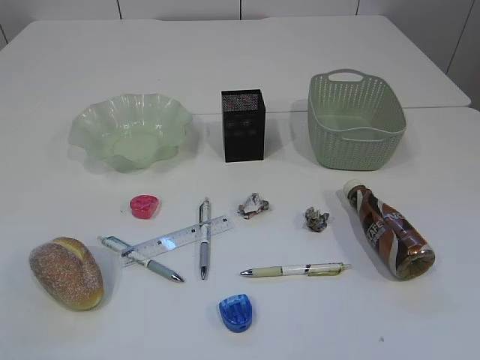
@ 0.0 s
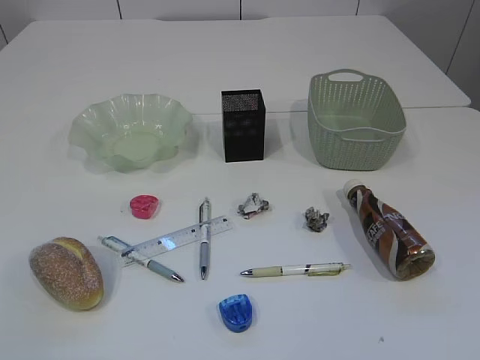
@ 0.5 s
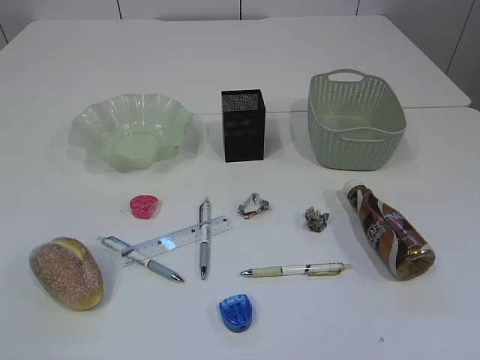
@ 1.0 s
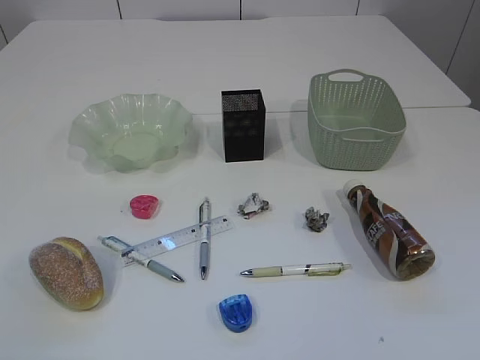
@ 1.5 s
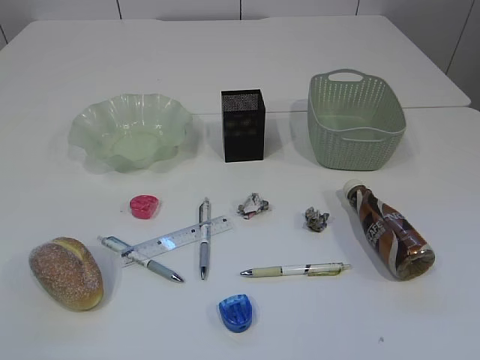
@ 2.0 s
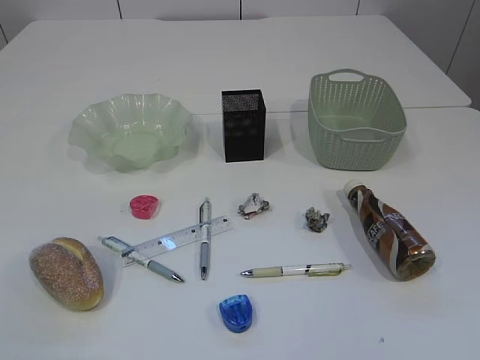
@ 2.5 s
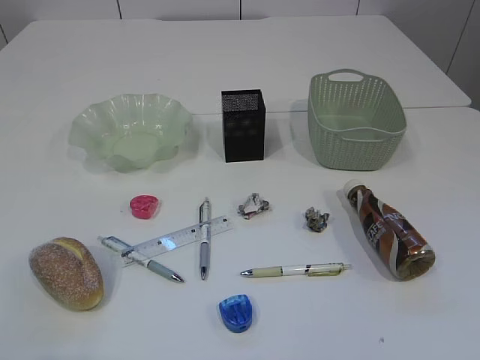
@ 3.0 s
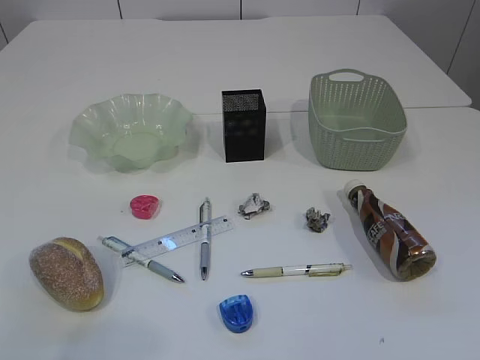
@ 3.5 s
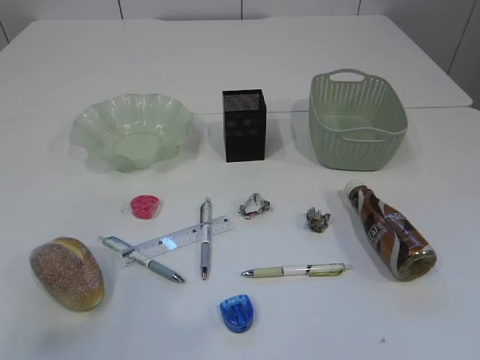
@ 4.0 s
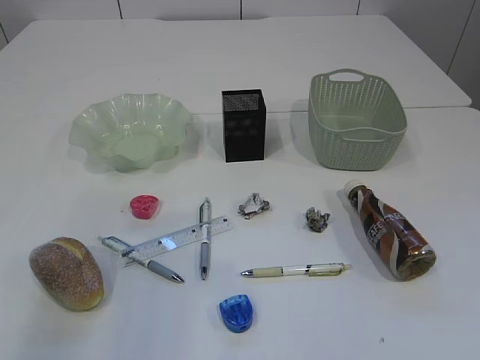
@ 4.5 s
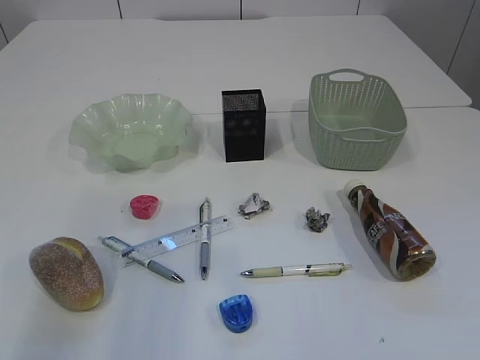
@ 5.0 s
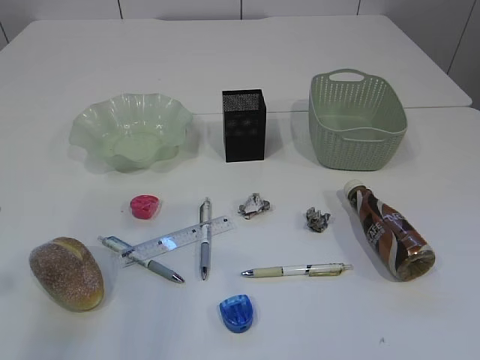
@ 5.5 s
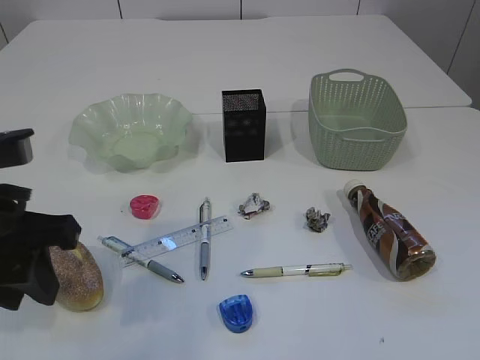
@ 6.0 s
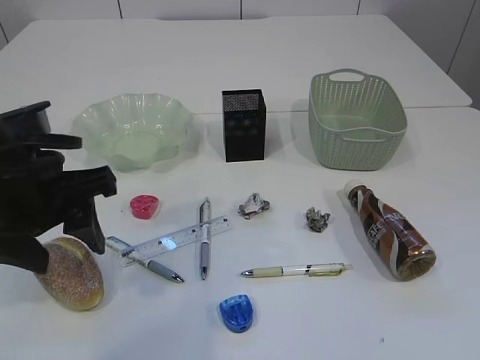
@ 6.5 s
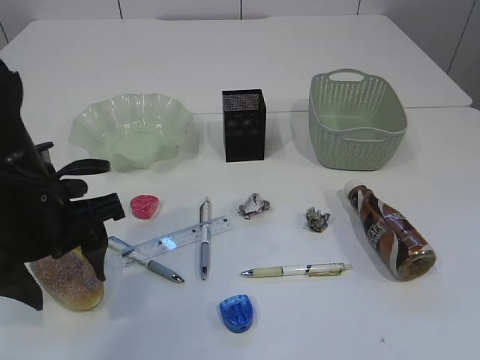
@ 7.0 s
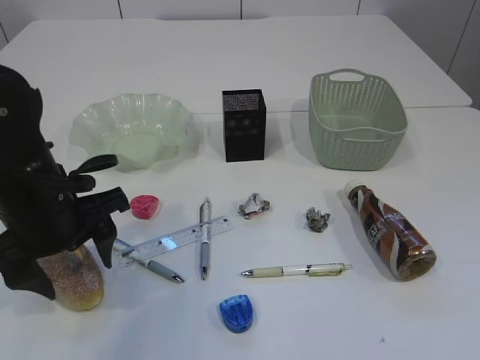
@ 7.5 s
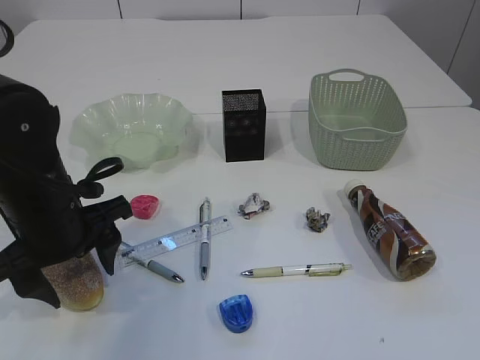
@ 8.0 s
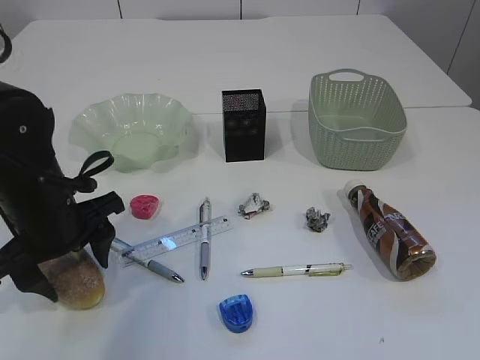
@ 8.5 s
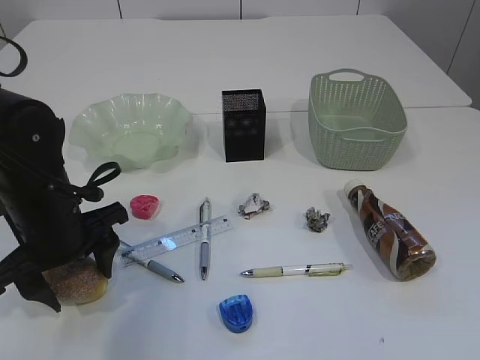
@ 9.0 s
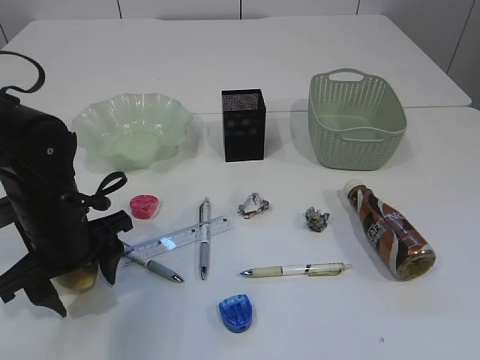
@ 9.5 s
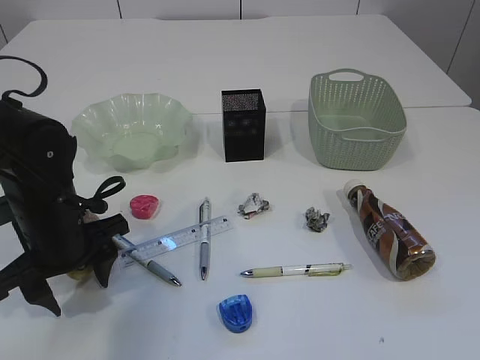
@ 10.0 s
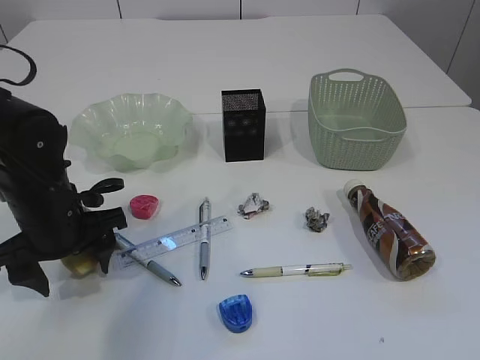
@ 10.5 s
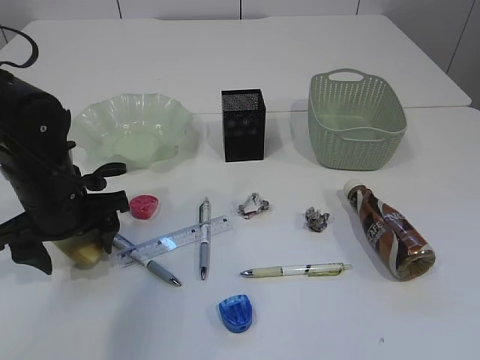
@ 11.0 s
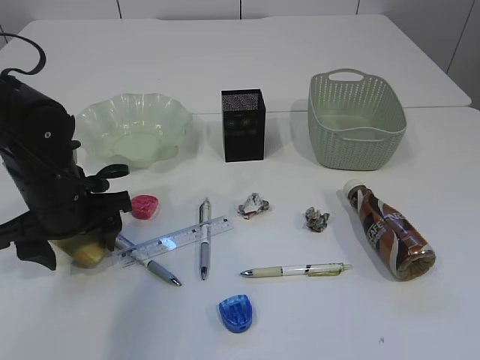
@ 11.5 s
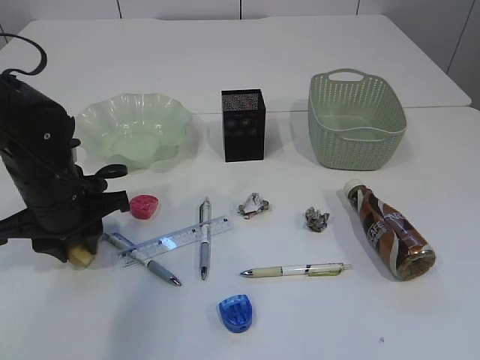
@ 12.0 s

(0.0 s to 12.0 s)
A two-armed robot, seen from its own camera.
2.0 s - 4.0 s: The left gripper is displaced forward by approximately 10 cm.
4.0 s - 6.0 s: The left gripper is displaced forward, to the right and downward by approximately 15 cm.
6.0 s - 8.0 s: The left gripper goes some 10 cm downward and forward, and opens its fingers.
8.0 s - 10.0 s: The left gripper changes place by about 5 cm.
10.0 s - 12.0 s: The left gripper closes.

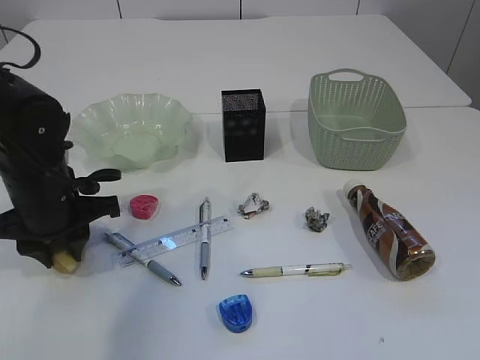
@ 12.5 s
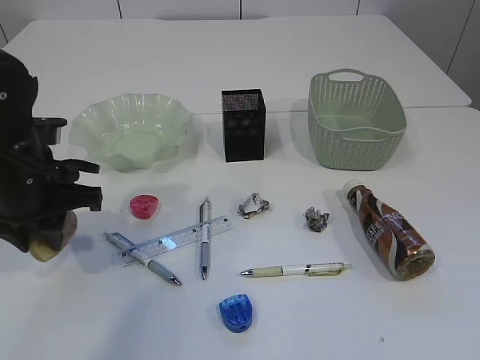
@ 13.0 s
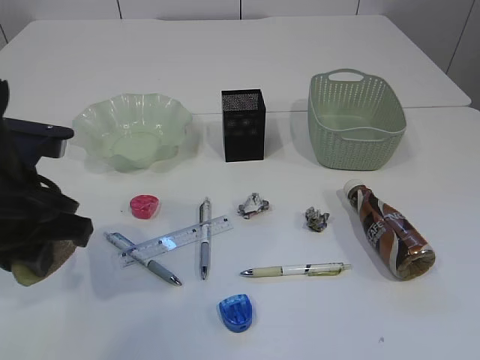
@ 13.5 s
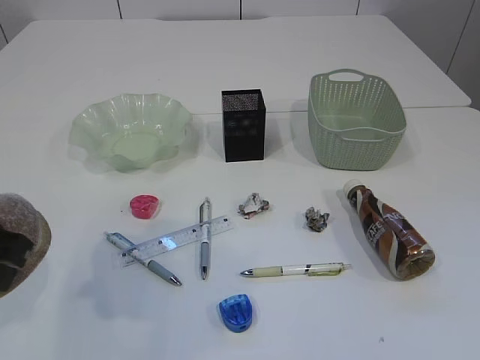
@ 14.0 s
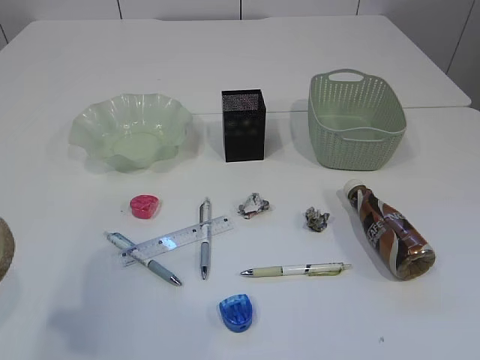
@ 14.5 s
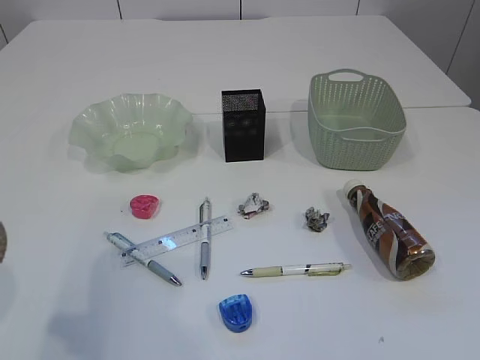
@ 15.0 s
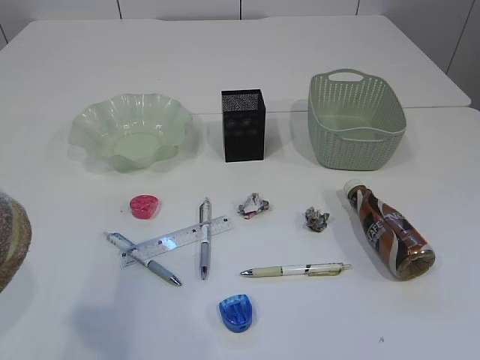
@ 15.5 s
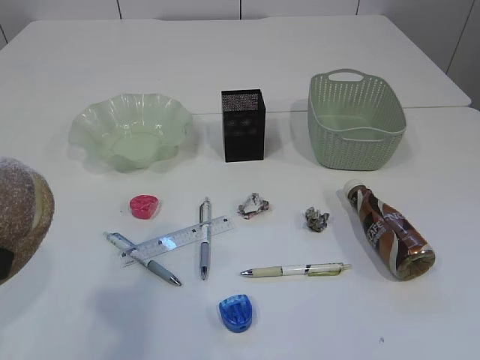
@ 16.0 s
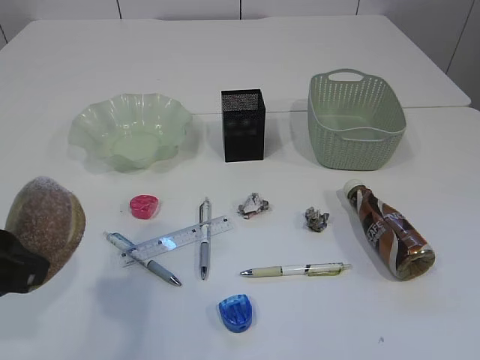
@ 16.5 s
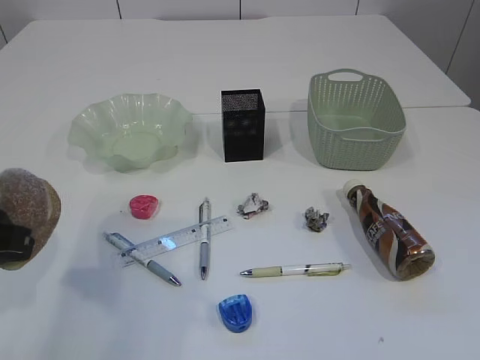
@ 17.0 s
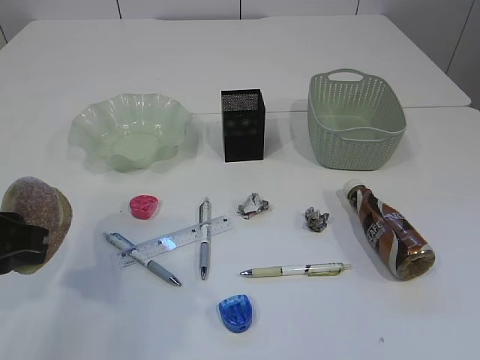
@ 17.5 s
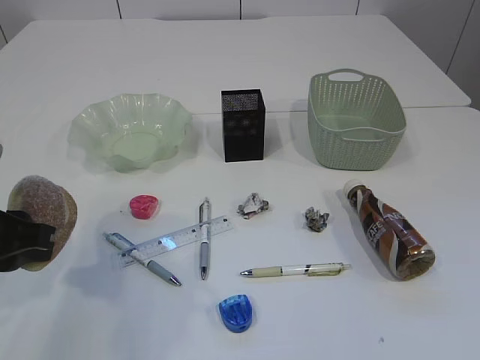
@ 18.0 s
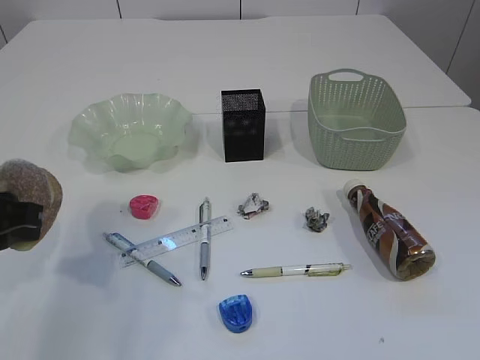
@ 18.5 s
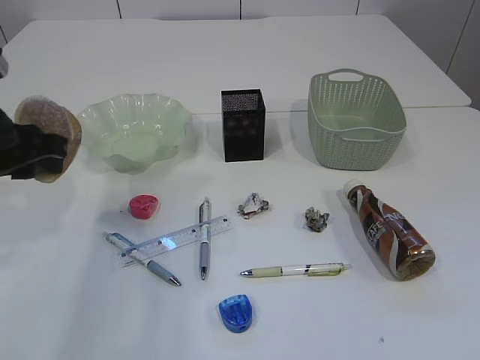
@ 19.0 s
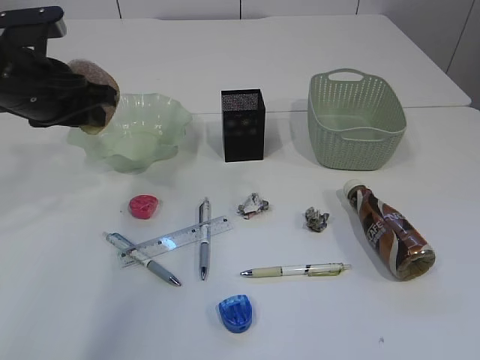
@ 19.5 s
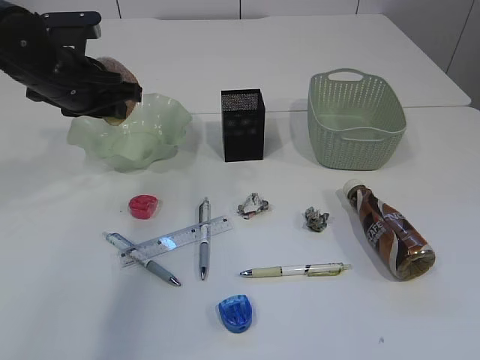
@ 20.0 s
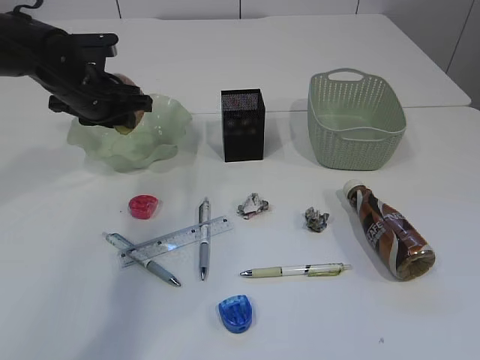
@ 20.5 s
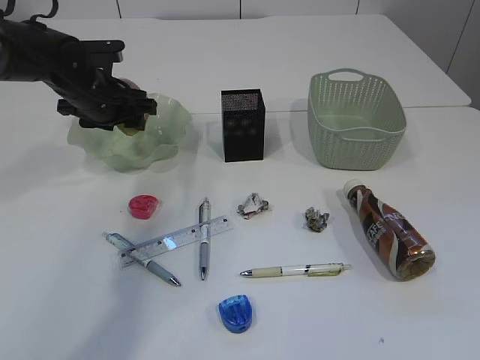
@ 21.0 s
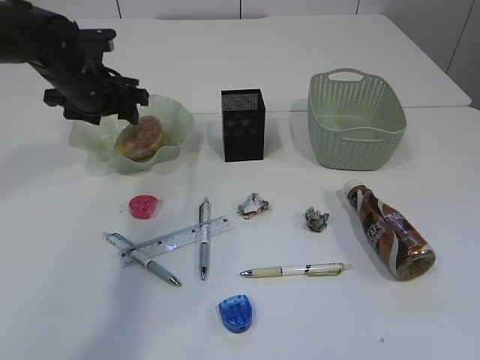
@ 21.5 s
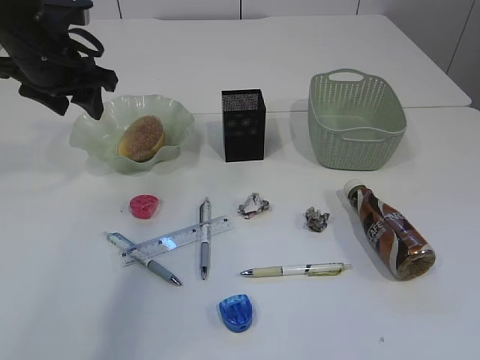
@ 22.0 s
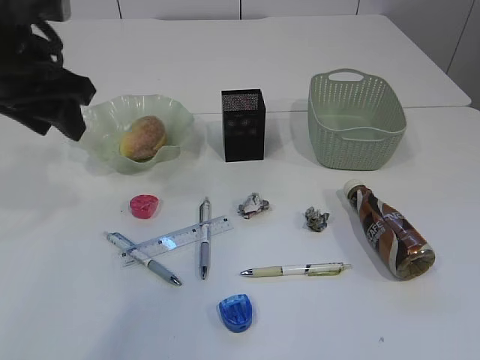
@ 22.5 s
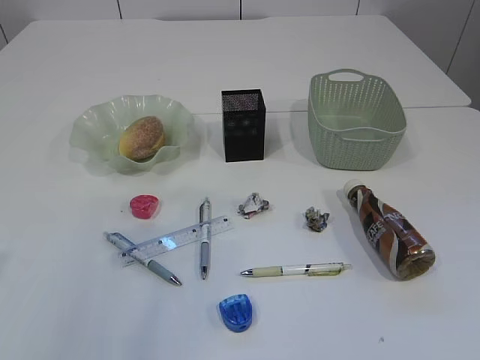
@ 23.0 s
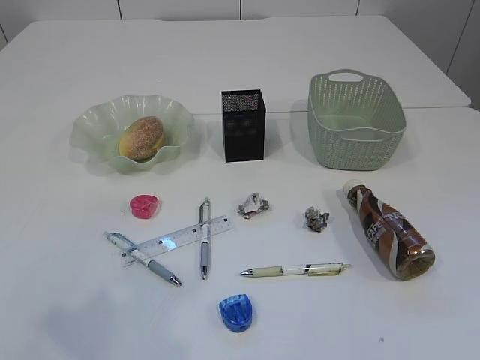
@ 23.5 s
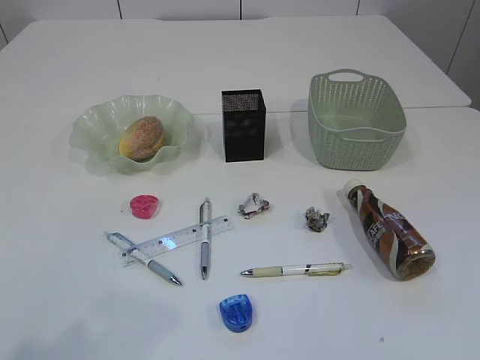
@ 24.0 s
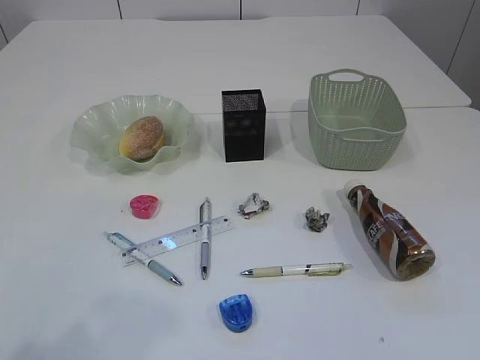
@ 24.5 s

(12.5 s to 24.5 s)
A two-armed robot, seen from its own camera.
Step, 13.5 s - 21.5 s: place the bread in the plate.
12.5 s - 14.5 s: The left gripper travels backward and upward by some 20 cm.
14.5 s - 16.5 s: The left gripper ends up roughly 5 cm from where it was.
16.5 s - 18.5 s: The left gripper shifts roughly 5 cm forward.
18.5 s - 20.5 s: The left gripper moves forward, approximately 25 cm.
20.5 s - 22.5 s: The left gripper moves backward and upward, about 15 cm, and opens, then closes again.
22.5 s - 24.5 s: The left gripper moves backward, roughly 30 cm.

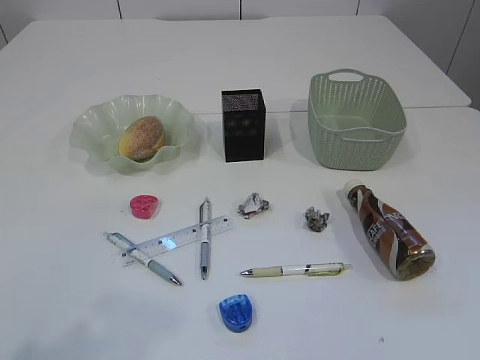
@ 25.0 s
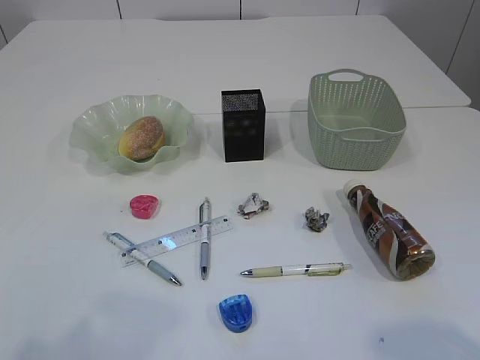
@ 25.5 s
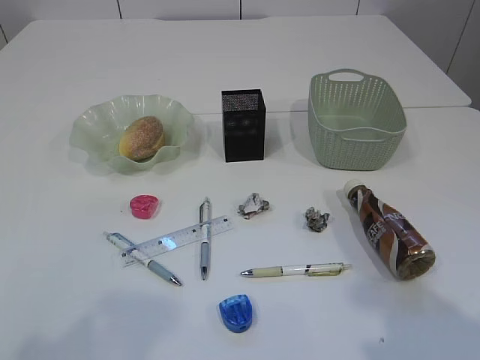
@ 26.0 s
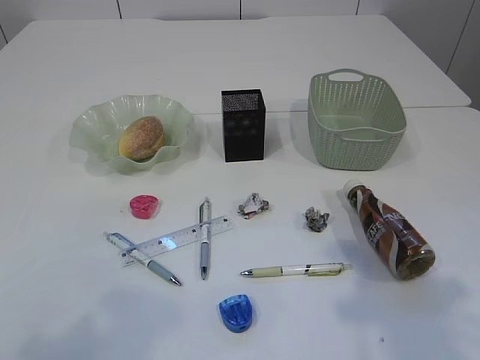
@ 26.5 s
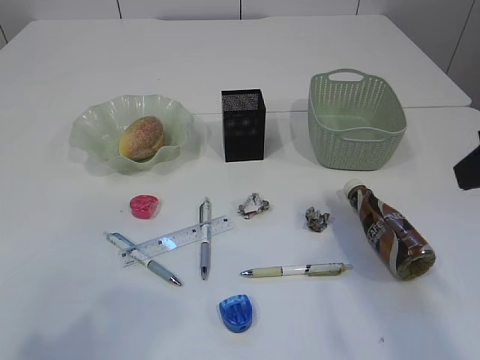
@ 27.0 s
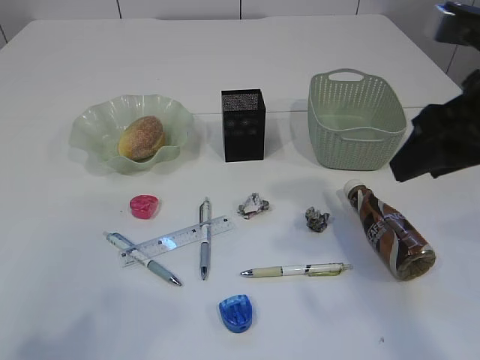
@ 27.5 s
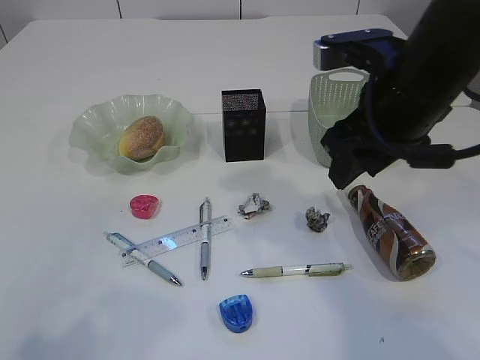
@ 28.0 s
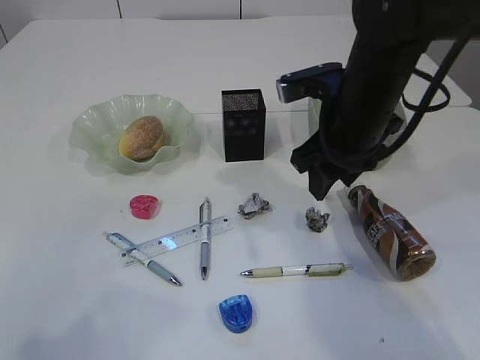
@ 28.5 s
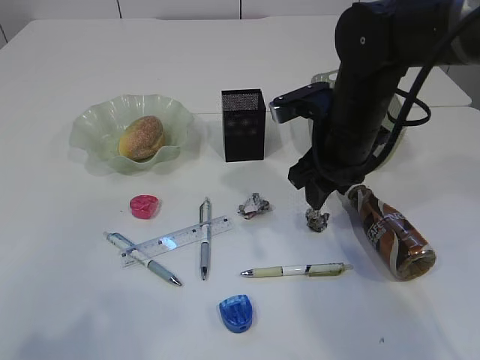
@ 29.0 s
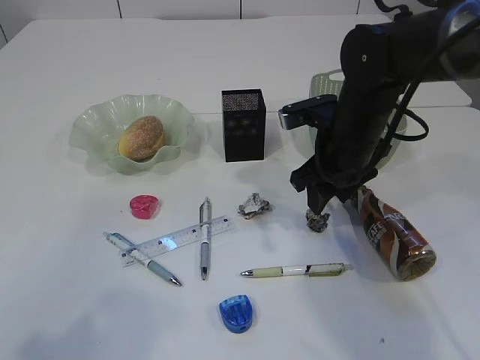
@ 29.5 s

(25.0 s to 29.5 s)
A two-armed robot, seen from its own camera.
25.0 s - 27.0 s: The right gripper shifts about 20 cm forward.
27.0 s - 29.5 s: The right gripper is displaced forward, downward and to the left by roughly 25 cm.
